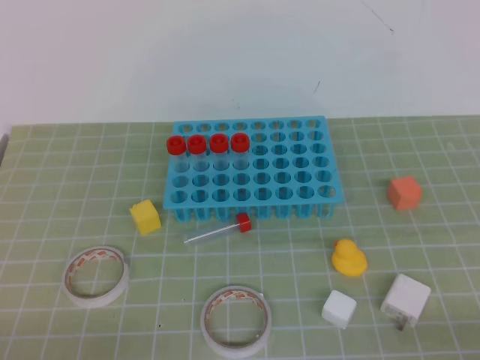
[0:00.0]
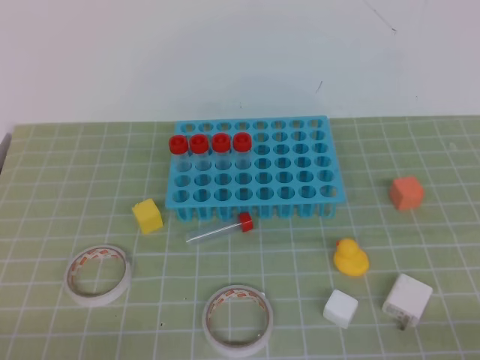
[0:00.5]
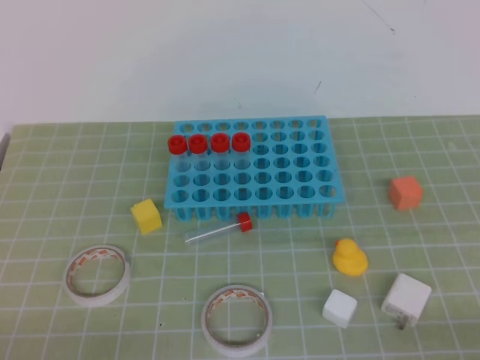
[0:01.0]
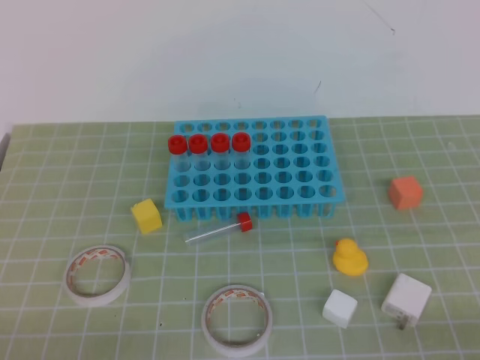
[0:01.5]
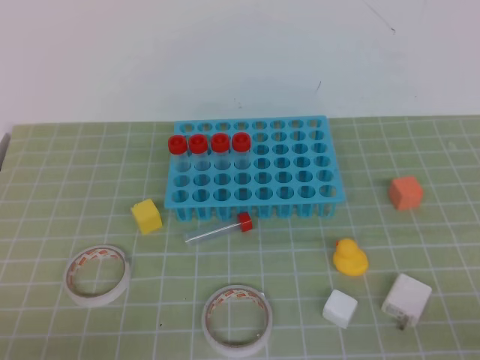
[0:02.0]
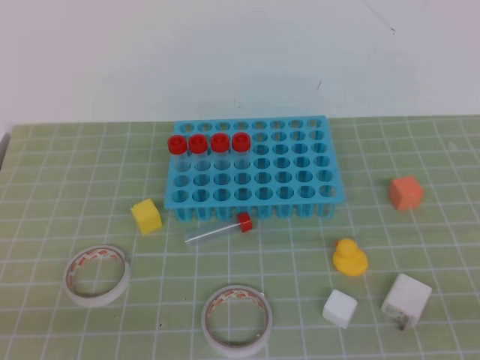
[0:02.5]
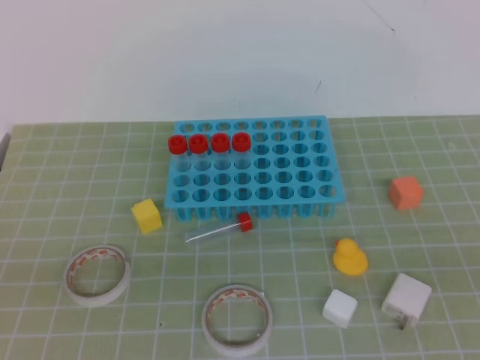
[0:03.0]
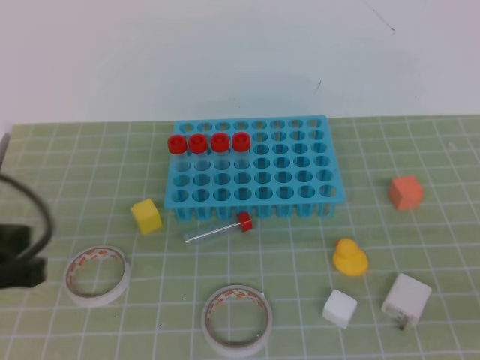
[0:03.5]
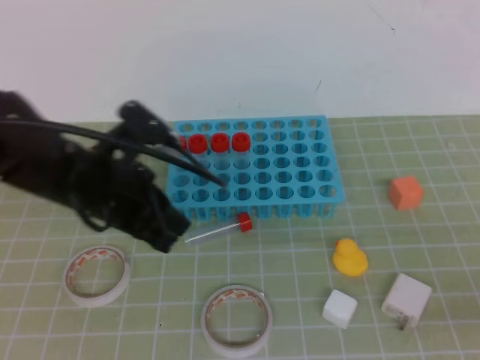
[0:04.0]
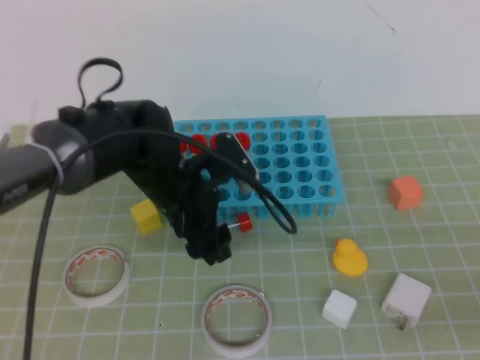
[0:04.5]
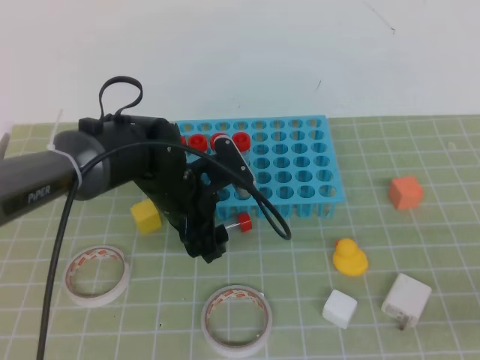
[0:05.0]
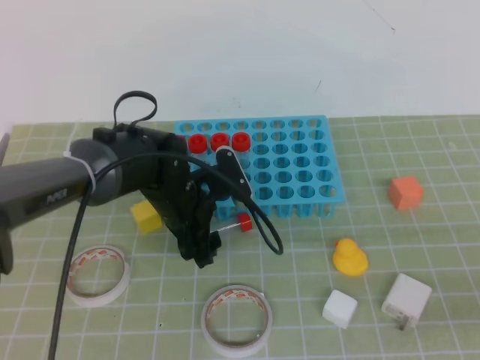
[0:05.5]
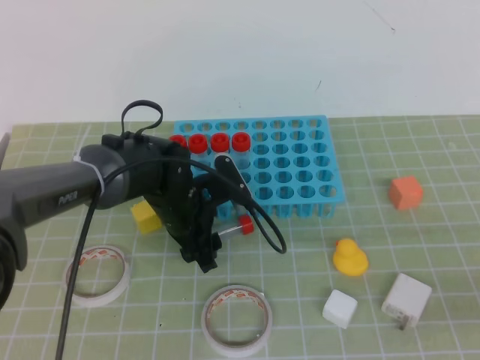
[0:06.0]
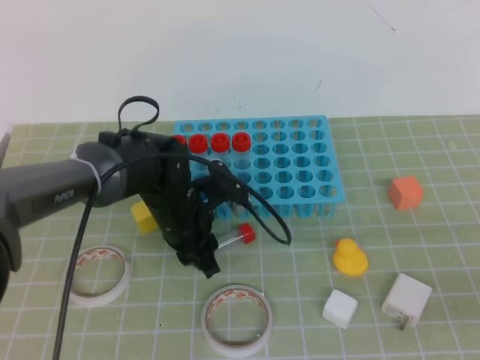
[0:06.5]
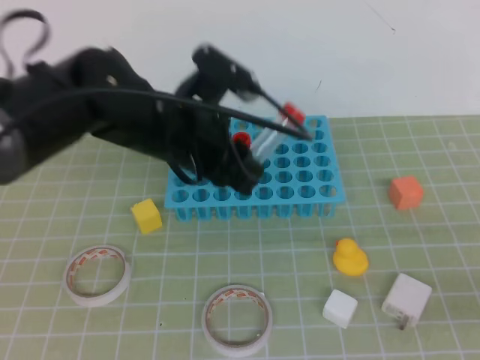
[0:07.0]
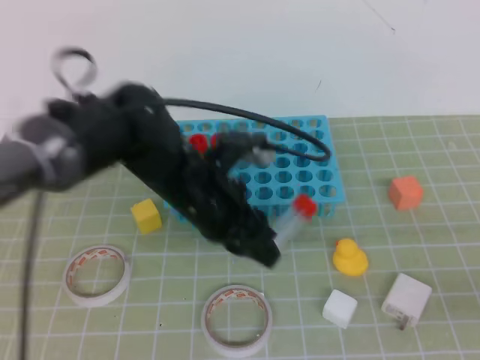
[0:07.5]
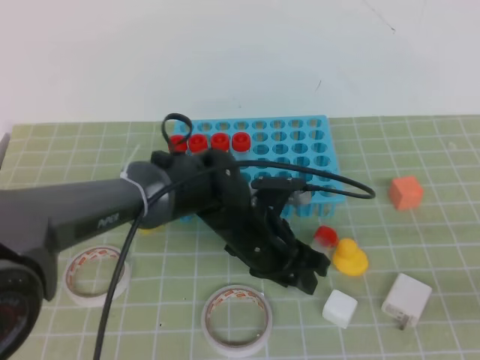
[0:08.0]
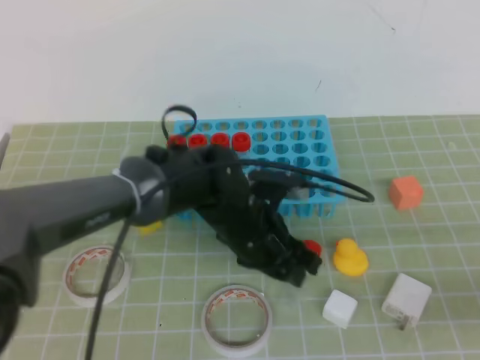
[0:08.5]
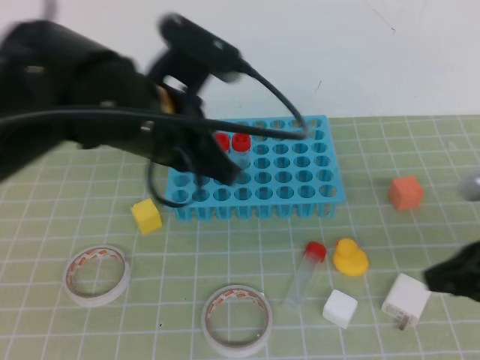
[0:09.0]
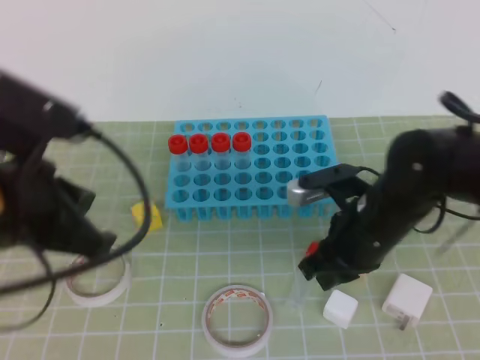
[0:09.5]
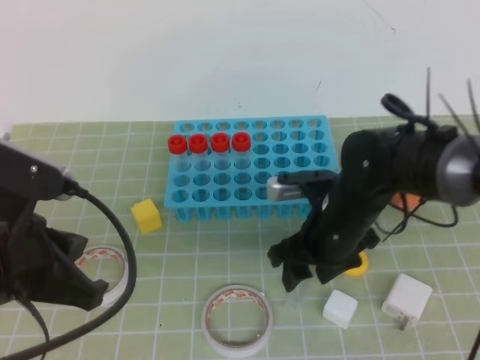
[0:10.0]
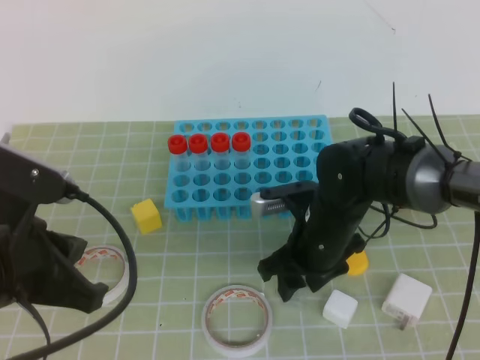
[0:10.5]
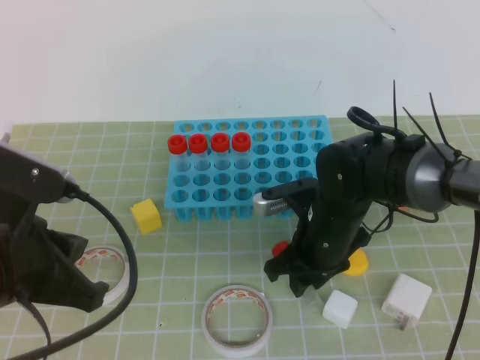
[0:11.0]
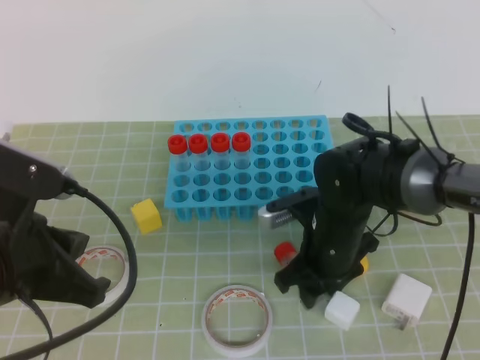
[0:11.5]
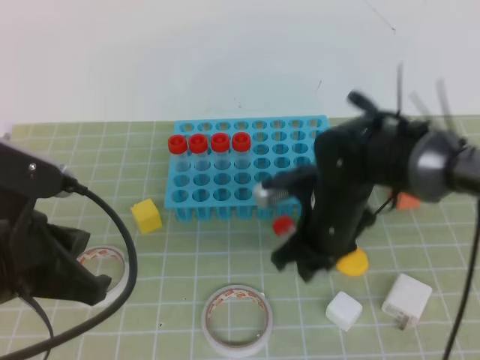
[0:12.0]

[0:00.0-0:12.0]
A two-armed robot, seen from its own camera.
0:02.0 to 0:04.0: The right gripper is displaced forward by approximately 5 cm, while the left gripper shifts about 25 cm forward and to the right.
0:04.0 to 0:06.0: The left gripper is displaced downward, forward and to the right by approximately 15 cm, and opens.
0:06.0 to 0:08.0: The left gripper goes about 10 cm to the right and backward, and goes upward and returns, approximately 15 cm each way.
0:08.0 to 0:10.0: The left gripper shifts approximately 30 cm to the left, backward and upward, and closes up; the right gripper heads to the left and forward, covering some 30 cm, and opens its fingers.
0:10.0 to 0:12.0: The right gripper closes its fingers.

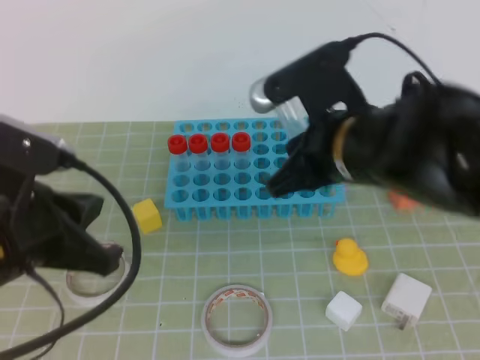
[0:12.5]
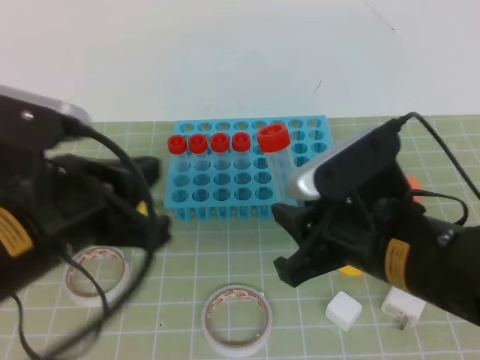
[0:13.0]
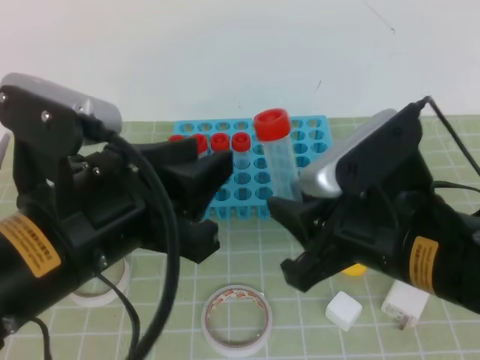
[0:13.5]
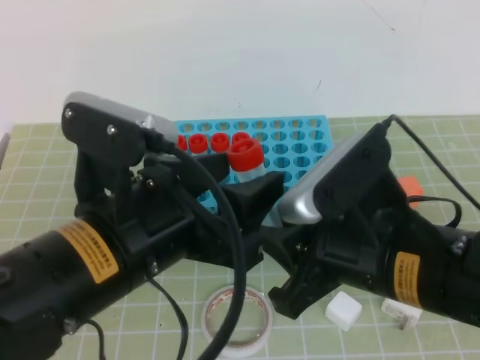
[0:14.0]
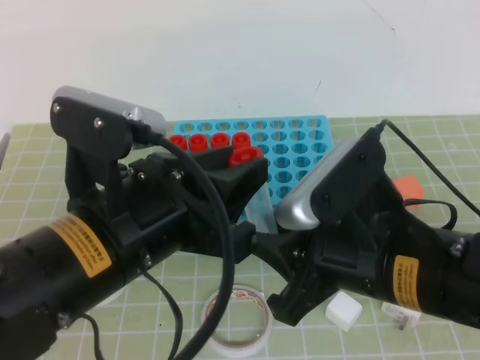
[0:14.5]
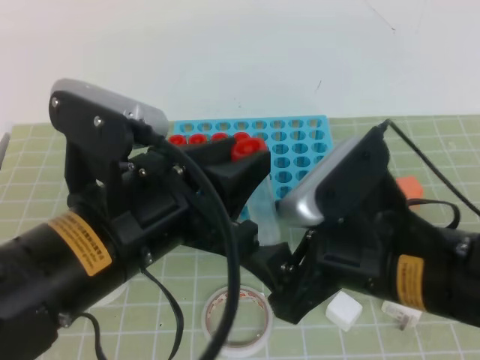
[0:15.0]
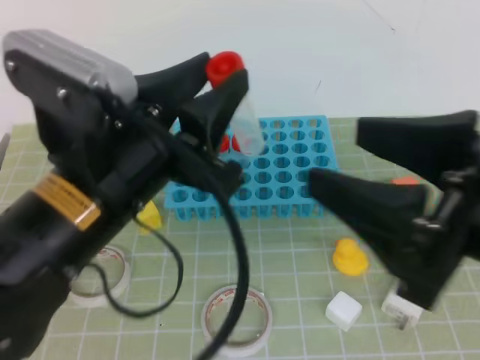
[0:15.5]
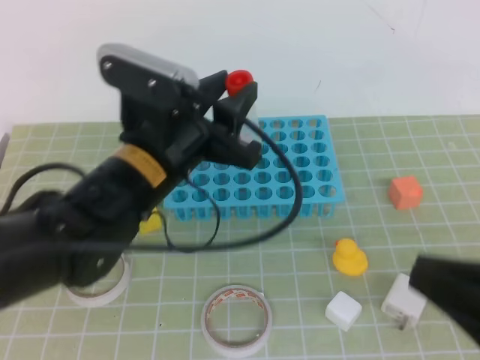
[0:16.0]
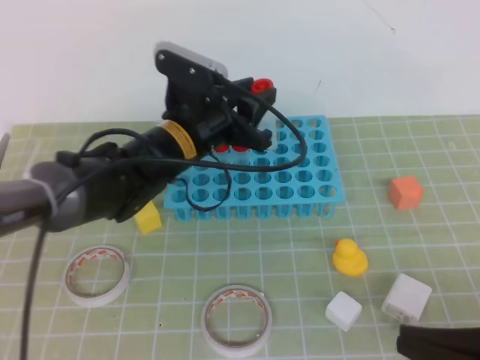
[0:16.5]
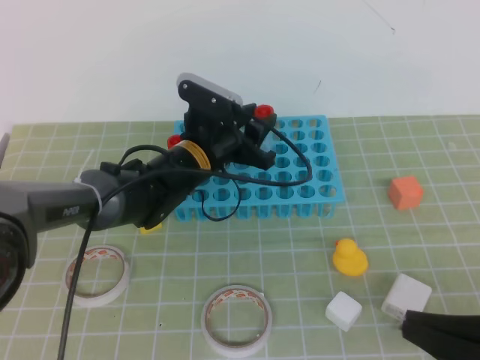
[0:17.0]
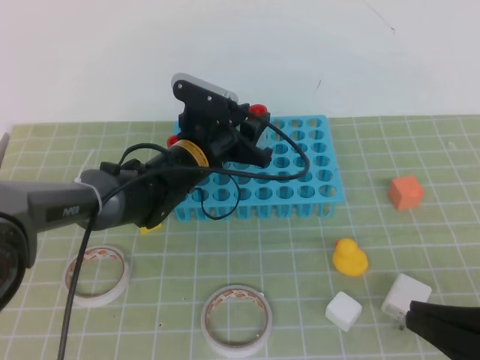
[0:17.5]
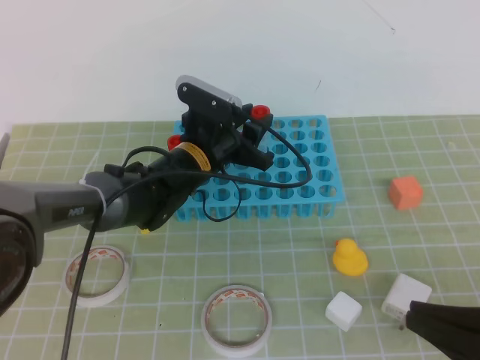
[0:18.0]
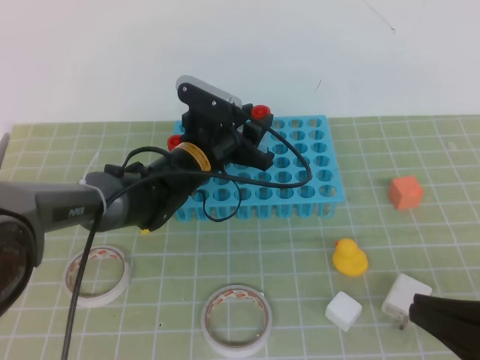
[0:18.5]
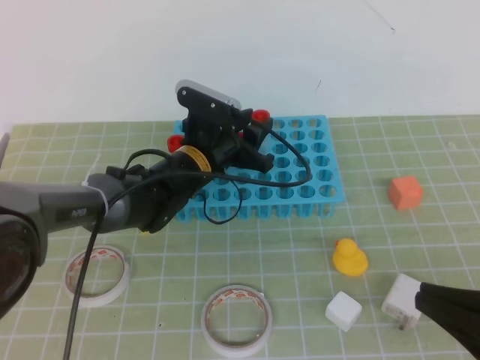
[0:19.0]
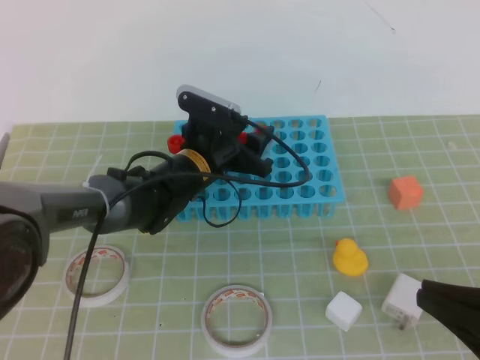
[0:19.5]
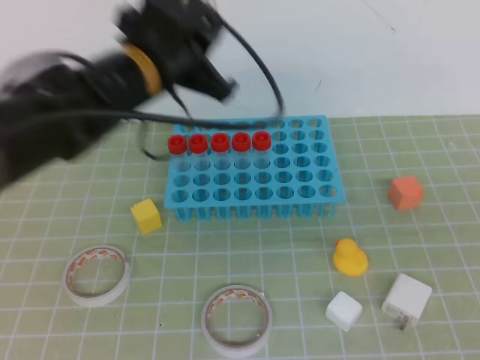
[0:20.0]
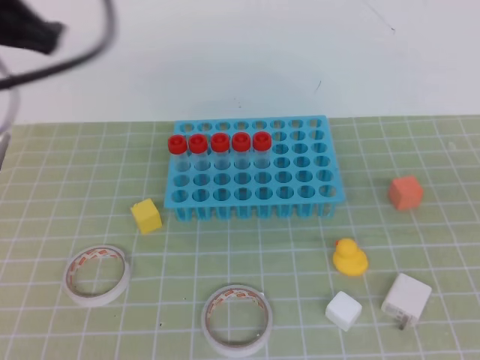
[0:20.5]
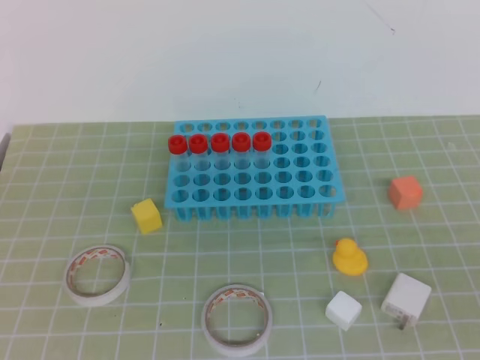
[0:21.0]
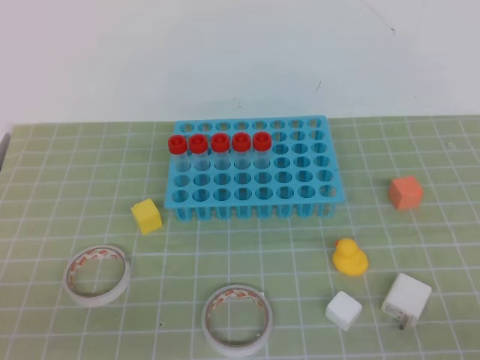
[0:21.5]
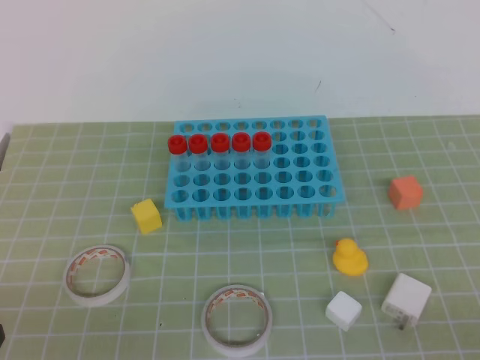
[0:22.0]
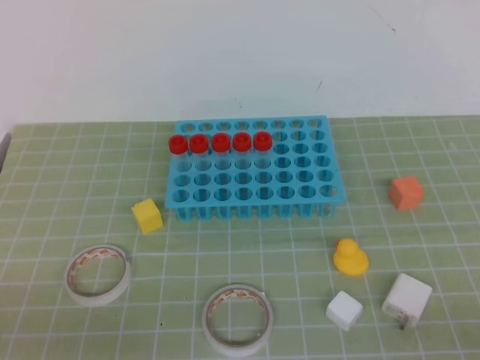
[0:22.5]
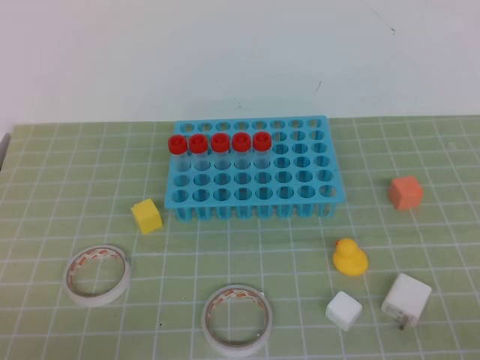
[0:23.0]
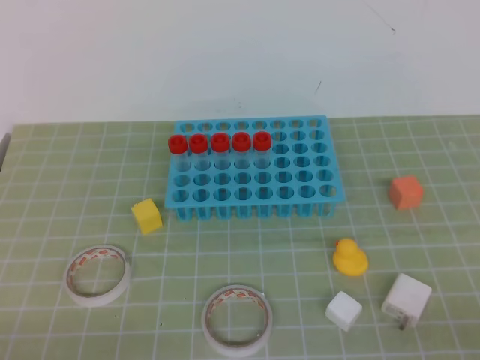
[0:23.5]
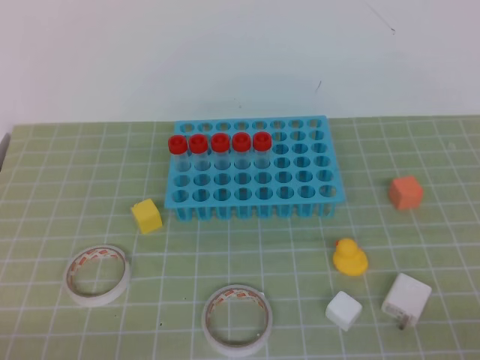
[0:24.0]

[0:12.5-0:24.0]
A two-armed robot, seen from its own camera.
0:12.5 to 0:14.5: The right gripper heads backward, covering approximately 10 cm; the left gripper goes roughly 10 cm to the right, and opens up.
0:14.5 to 0:16.5: The right gripper heads to the right and backward, covering about 15 cm, and closes its fingers; the left gripper shifts approximately 20 cm forward.
0:16.5 to 0:18.5: The left gripper shifts approximately 5 cm downward.
0:18.5 to 0:20.0: The left gripper is displaced upward by approximately 15 cm, and closes; the right gripper changes place by approximately 5 cm.
0:20.0 to 0:22.0: The left gripper goes approximately 35 cm backward and to the left. The right gripper shifts about 10 cm backward and to the right.

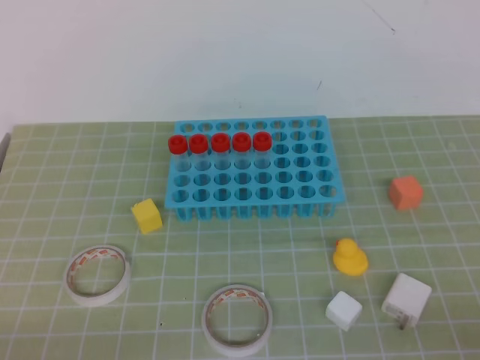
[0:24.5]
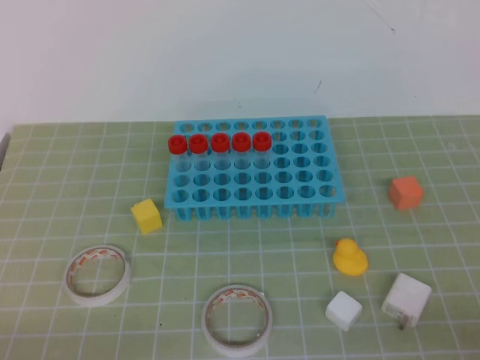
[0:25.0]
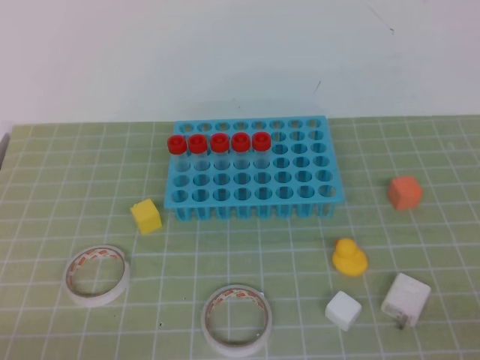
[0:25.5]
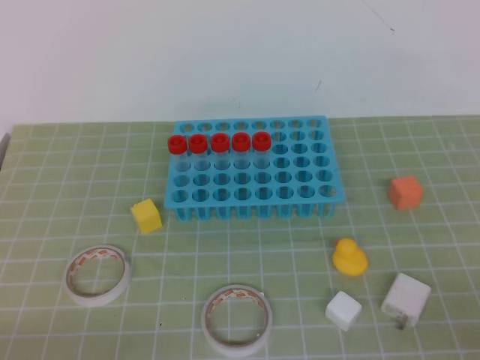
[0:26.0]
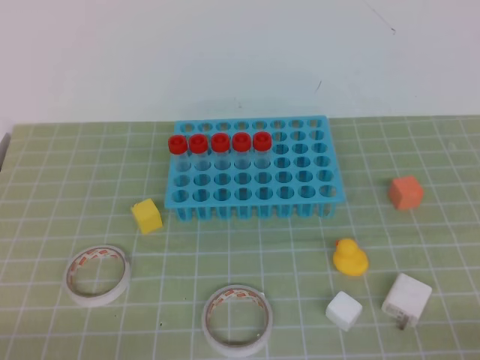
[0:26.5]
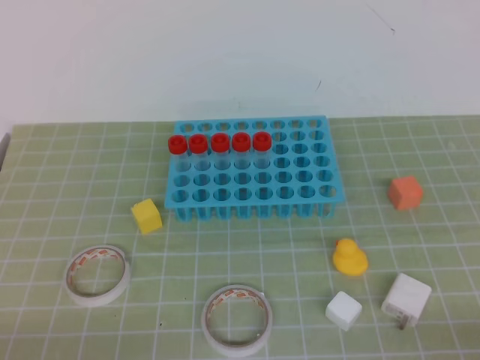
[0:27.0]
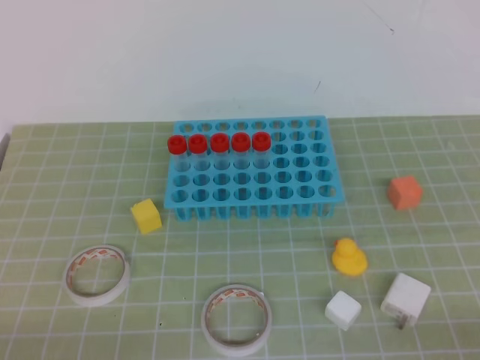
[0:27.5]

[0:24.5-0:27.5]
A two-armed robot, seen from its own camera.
0:26.0 to 0:27.5: The right gripper moves downward, some 10 cm.
